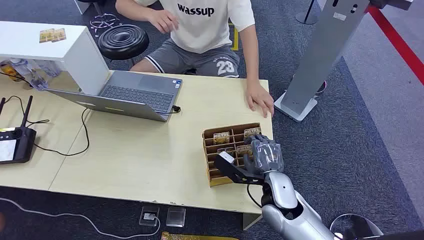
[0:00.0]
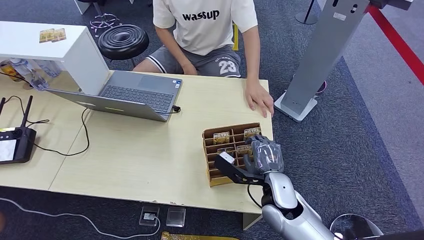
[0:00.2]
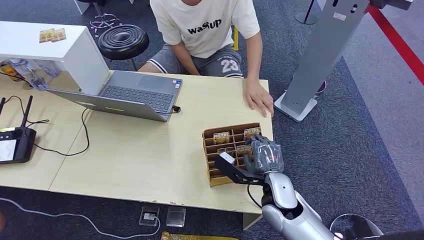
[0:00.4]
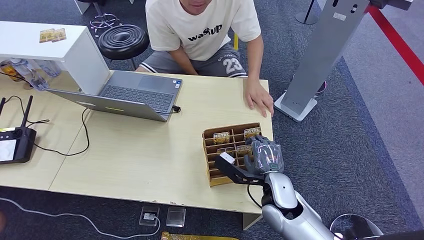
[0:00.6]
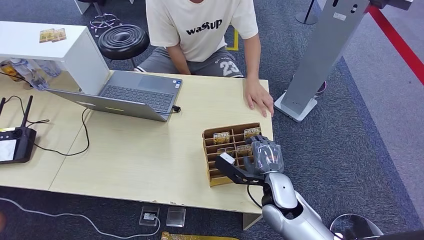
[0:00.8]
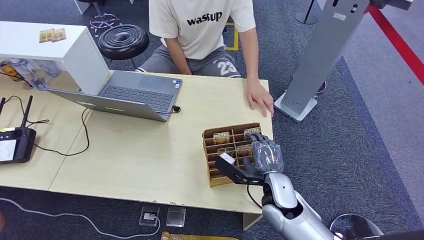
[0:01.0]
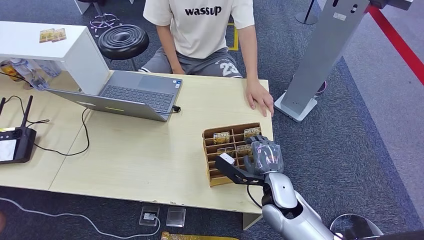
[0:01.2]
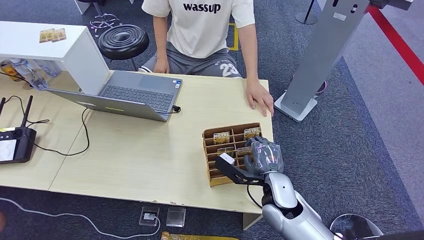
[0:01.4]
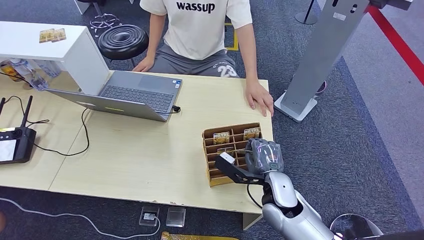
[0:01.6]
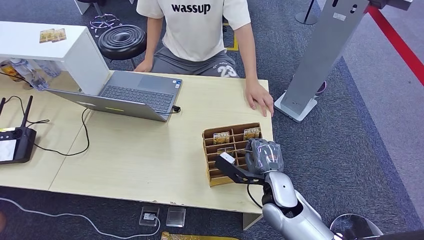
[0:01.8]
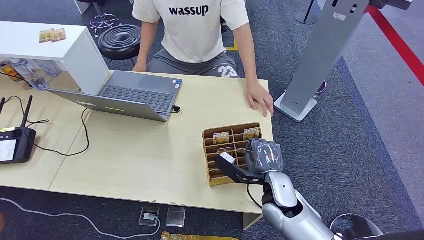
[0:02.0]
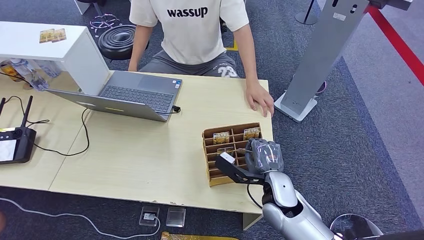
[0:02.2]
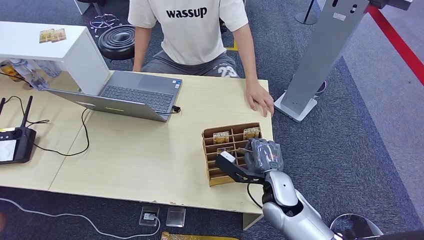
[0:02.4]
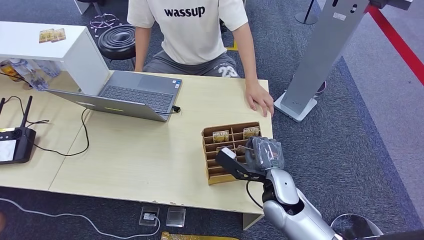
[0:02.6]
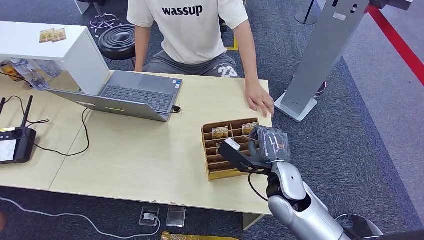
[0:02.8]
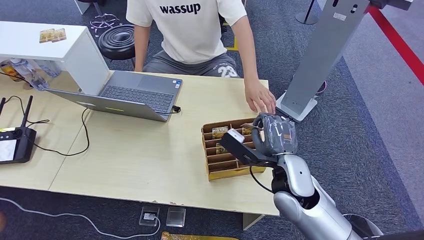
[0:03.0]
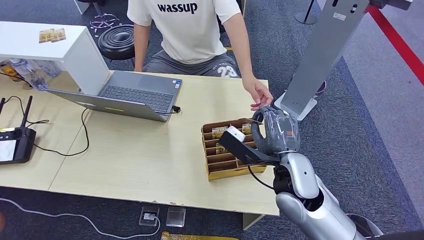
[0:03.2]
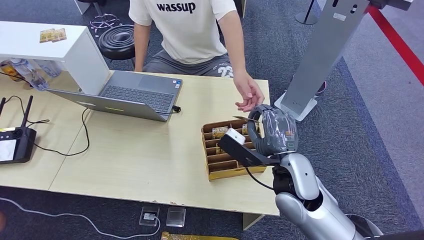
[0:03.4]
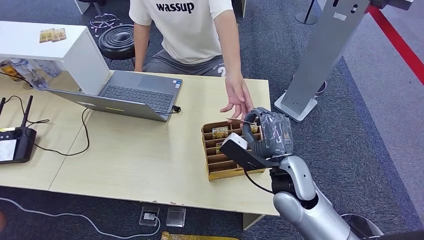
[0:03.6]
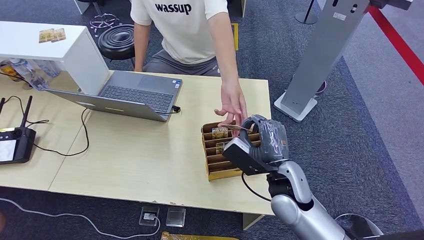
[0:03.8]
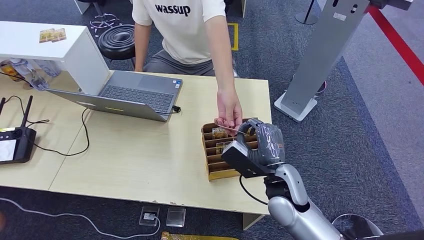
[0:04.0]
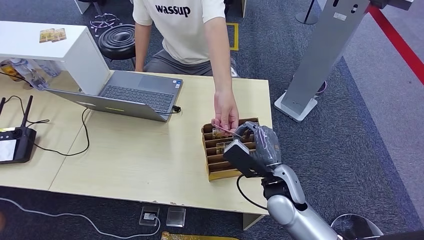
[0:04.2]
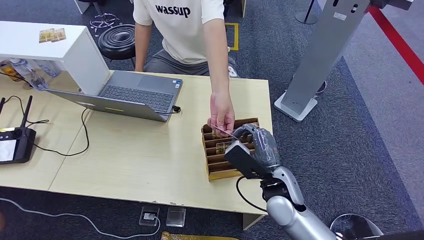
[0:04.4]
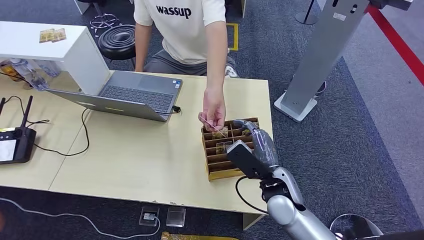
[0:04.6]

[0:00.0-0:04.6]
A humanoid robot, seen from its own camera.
Step, 0:00.0 to 0:02.8: Pick up the room card from the card holder.
Step, 0:03.2 to 0:04.4: Hand the room card to the target.
0:01.6 to 0:03.0: The right hand is displaced upward by about 15 cm.
0:03.0 to 0:04.6: The right hand moves downward, approximately 10 cm.
